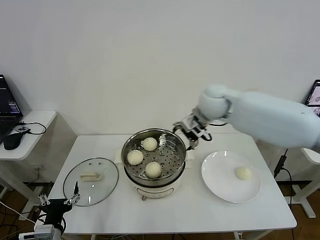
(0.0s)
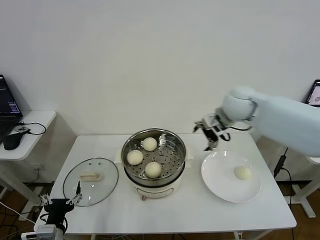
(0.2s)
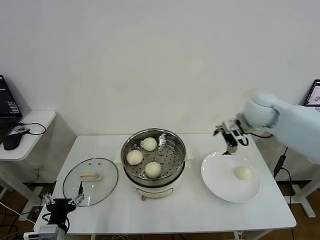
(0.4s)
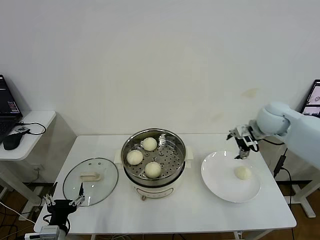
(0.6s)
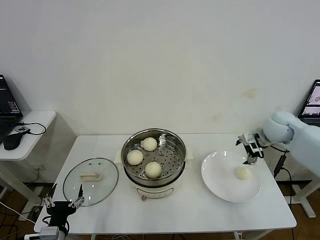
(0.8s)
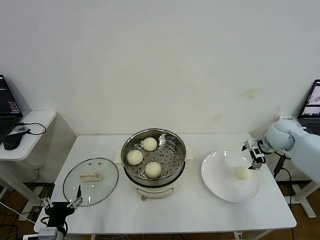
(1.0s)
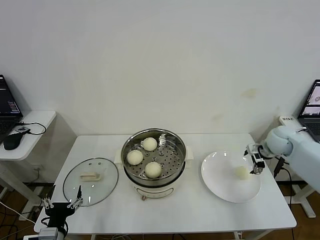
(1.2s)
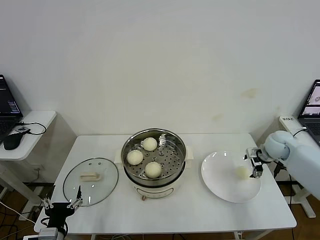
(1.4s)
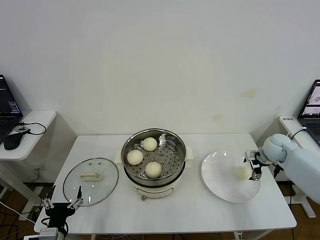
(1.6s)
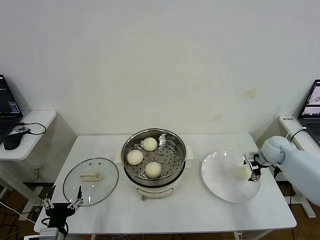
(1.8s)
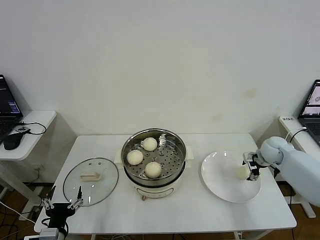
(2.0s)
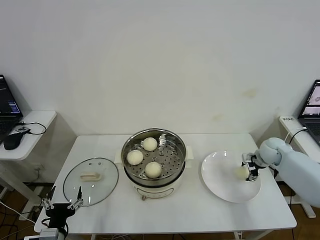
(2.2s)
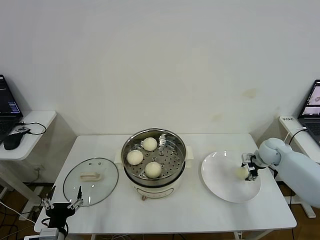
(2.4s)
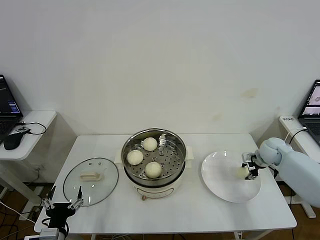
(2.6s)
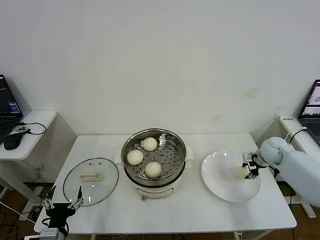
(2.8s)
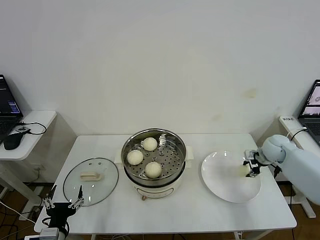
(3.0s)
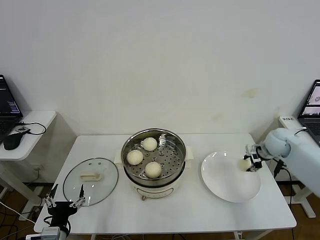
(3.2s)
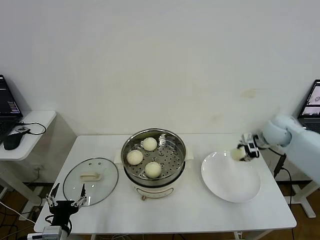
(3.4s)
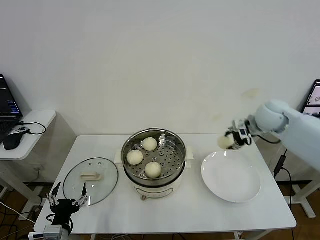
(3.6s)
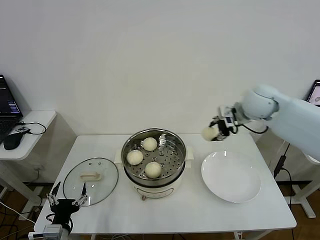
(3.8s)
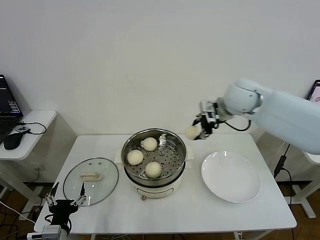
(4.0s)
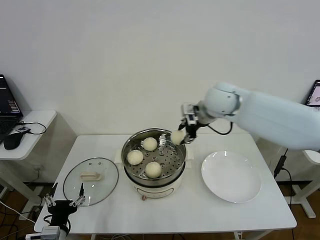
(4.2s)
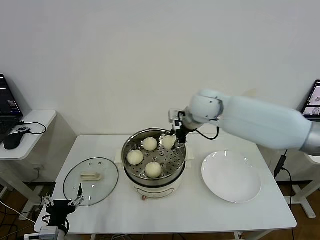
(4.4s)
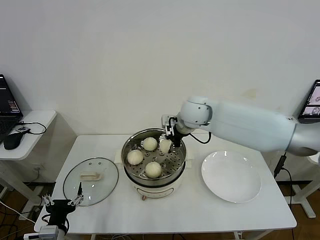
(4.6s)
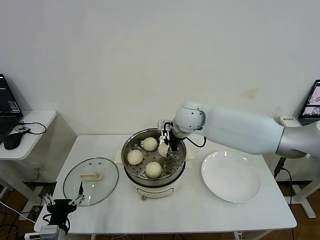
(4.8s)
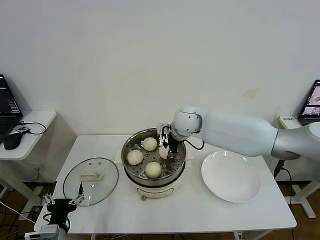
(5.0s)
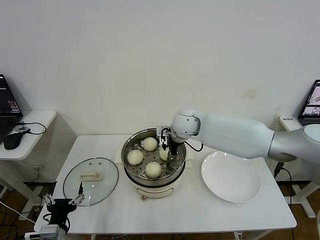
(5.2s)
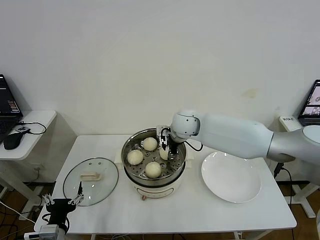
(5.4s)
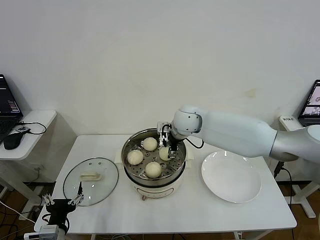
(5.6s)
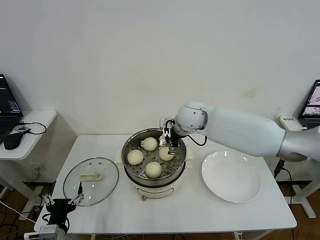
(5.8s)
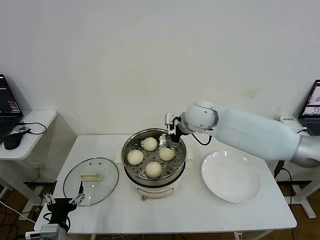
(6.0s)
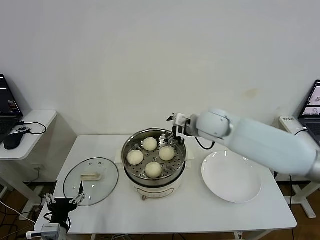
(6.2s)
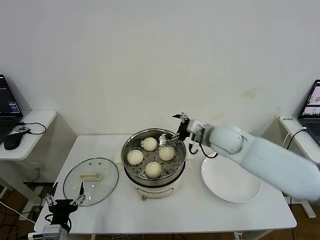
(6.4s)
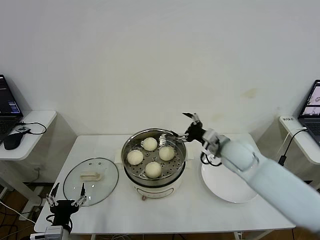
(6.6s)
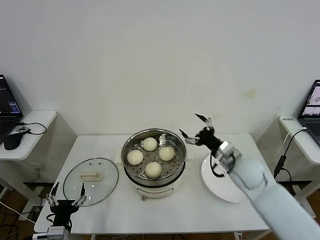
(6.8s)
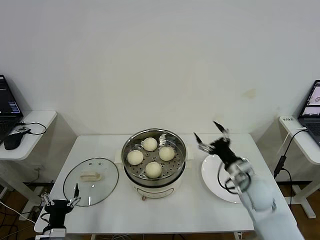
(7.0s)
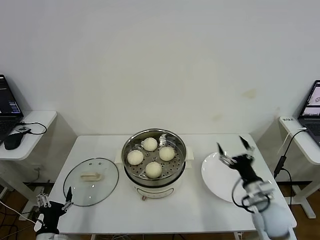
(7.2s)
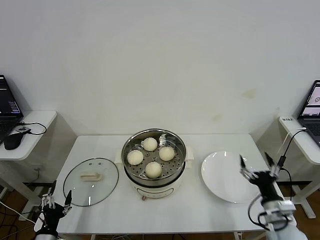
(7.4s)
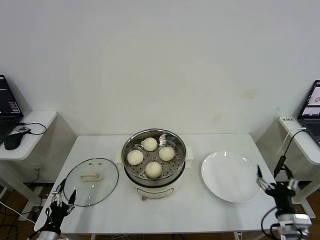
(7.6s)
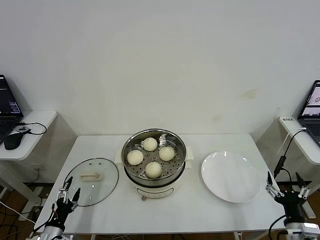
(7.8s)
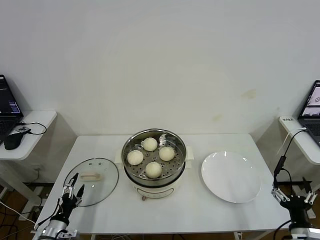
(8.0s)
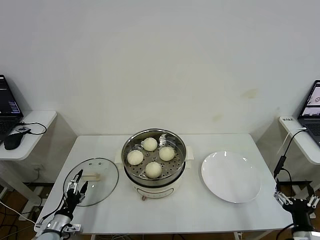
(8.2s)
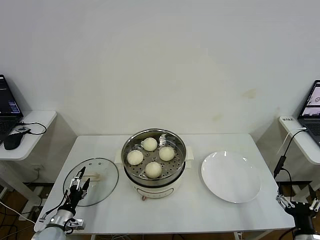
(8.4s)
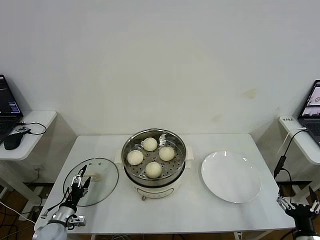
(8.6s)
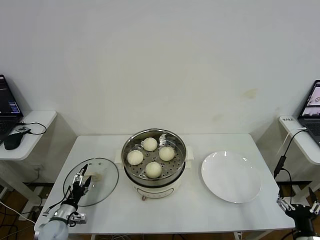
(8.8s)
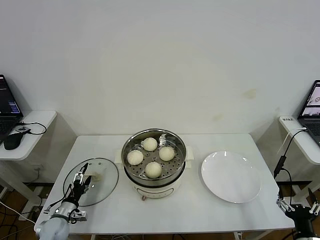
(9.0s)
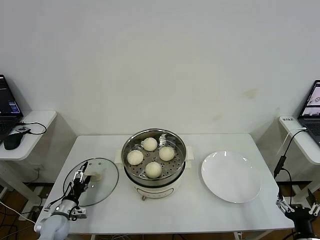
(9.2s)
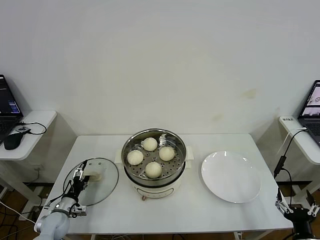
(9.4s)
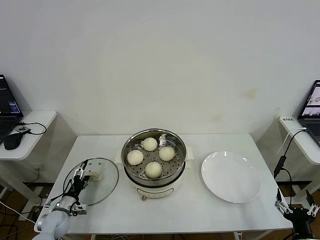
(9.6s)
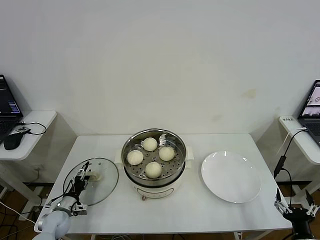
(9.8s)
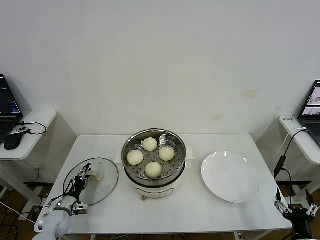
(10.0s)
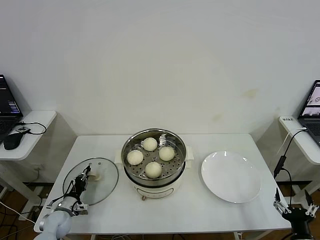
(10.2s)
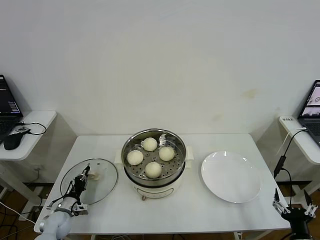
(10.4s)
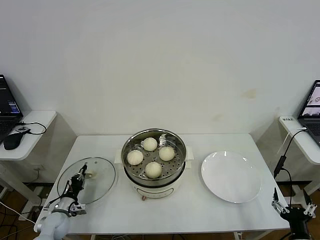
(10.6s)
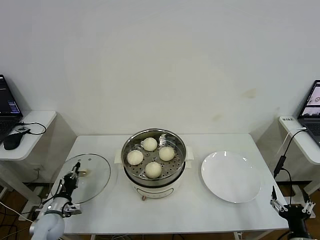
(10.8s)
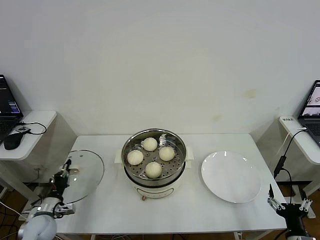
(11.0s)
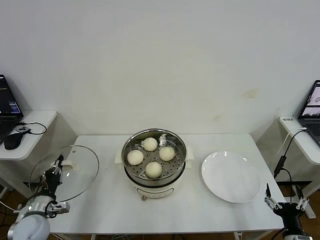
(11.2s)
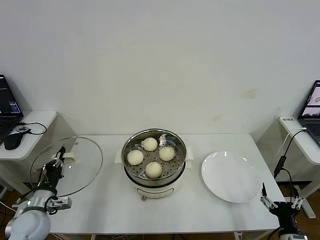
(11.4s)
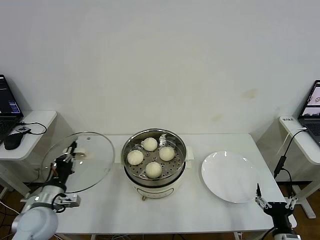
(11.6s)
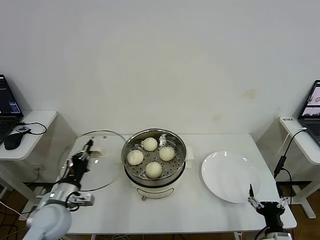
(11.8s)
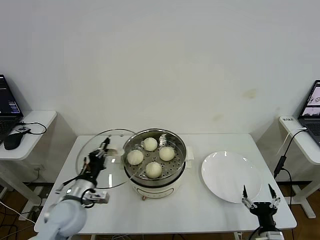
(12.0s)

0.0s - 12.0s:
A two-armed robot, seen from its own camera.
Step, 0.0s - 2.8s: Grasp the baozi in the plate with right gripper.
Step, 3.0s - 5.6s: Place the baozi on the steamer with right gripper.
Step, 5.8s - 10.4s: Grasp the pot lid with left gripper.
0.0s - 1.6s: The right gripper heads to the right and downward, covering some 30 cm.
1.6s - 3.0s: The right gripper closes up.
3.0s - 4.4s: The right gripper heads to the left and upward, covering roughly 35 cm.
4.4s - 6.0s: The right gripper opens.
6.0s - 7.6s: The left gripper shifts roughly 10 cm downward and to the left; the right gripper heads backward, to the right and downward, covering approximately 50 cm.
7.6s - 9.0s: The right gripper moves backward, some 5 cm; the left gripper is displaced forward by roughly 10 cm.
9.0s - 10.4s: The left gripper closes its fingers.
10.4s - 12.0s: The left gripper travels upward and to the right by roughly 25 cm. Meanwhile the right gripper shifts approximately 5 cm to the left.

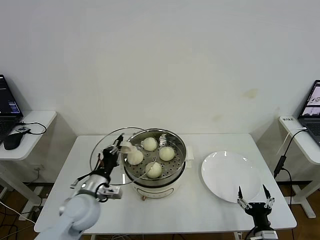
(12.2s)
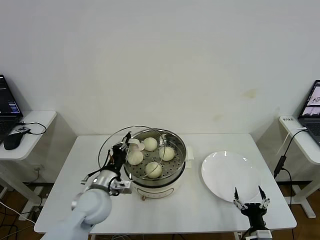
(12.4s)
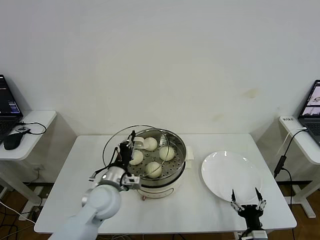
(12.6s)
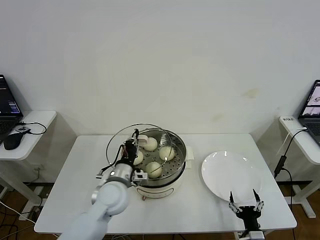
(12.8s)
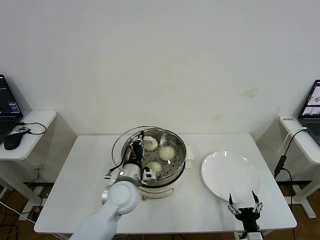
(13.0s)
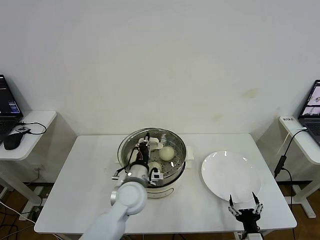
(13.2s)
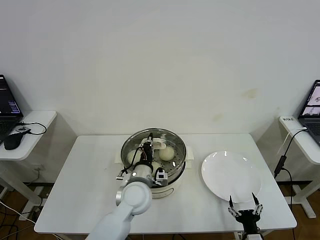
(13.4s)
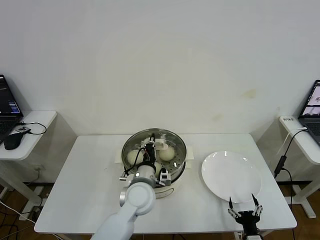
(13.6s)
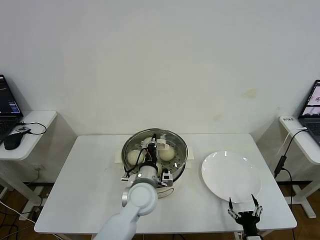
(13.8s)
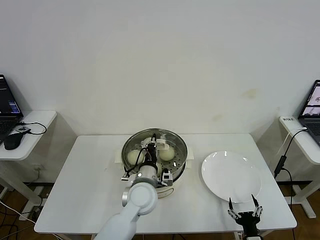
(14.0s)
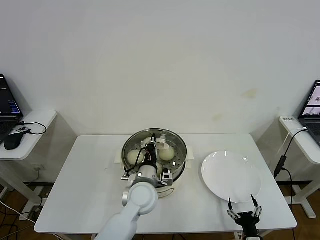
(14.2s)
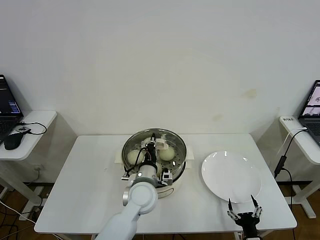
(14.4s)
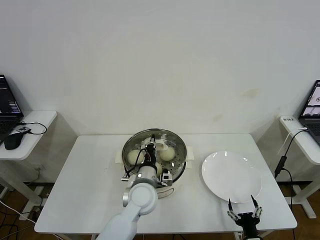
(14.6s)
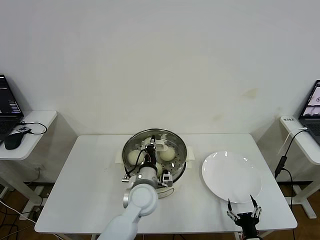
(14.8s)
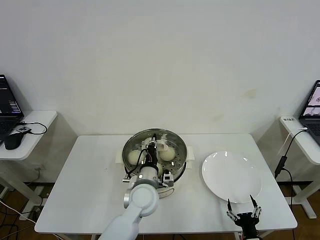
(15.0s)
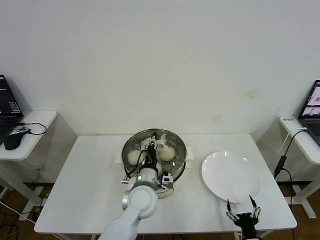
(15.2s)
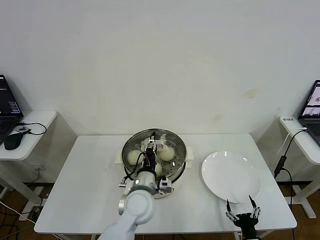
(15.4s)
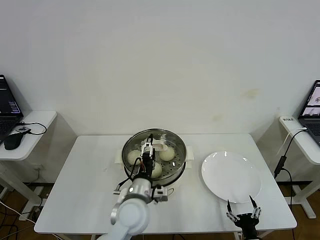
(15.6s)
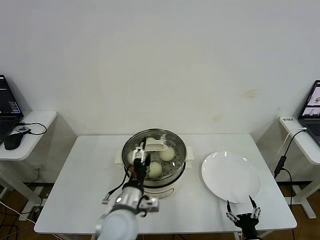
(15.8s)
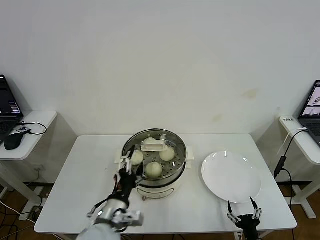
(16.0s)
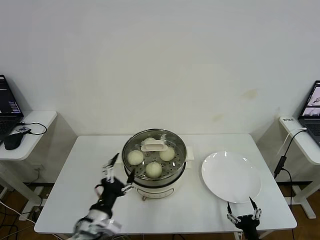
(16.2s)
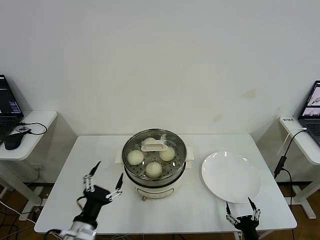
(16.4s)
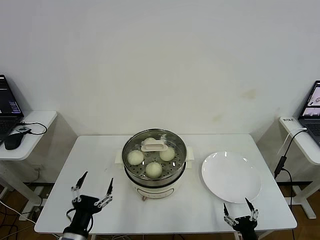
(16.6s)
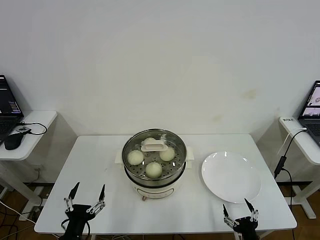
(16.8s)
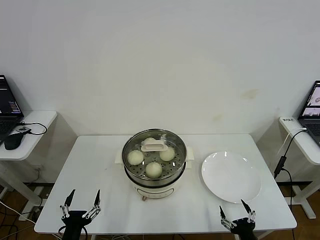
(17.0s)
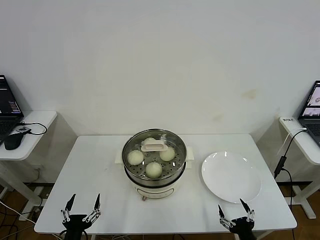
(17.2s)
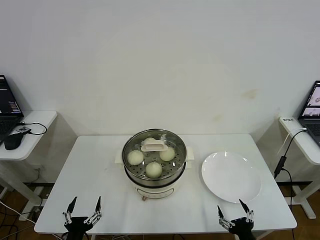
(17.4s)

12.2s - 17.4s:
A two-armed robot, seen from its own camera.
Step, 12.2s - 15.4s: Place the pot lid on the steamer with left gripper.
12.2s - 14.0s: The left gripper shifts approximately 20 cm to the right.
14.0s - 15.6s: The left gripper opens.
15.6s - 17.4s: The right gripper travels upward by roughly 5 cm; the left gripper heads to the left, backward and downward, covering some 30 cm.

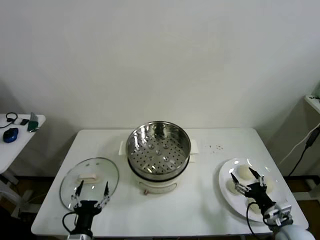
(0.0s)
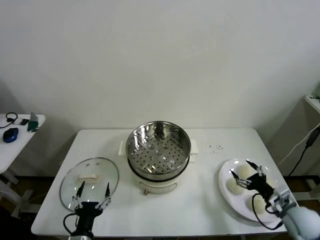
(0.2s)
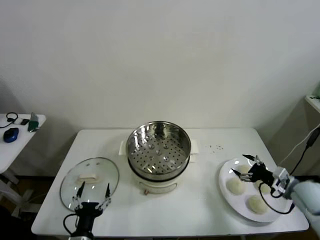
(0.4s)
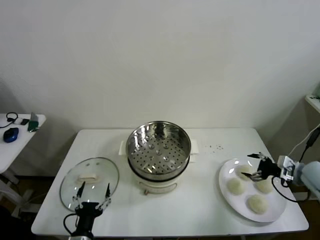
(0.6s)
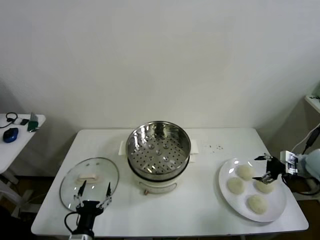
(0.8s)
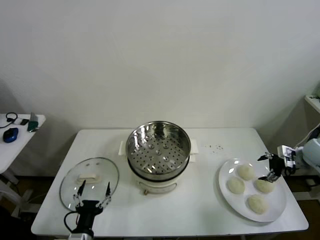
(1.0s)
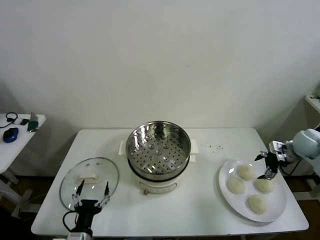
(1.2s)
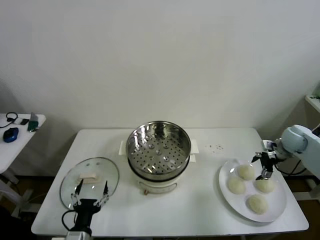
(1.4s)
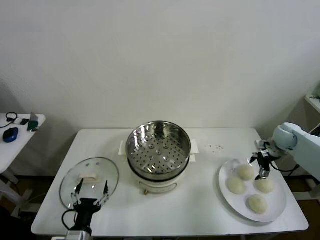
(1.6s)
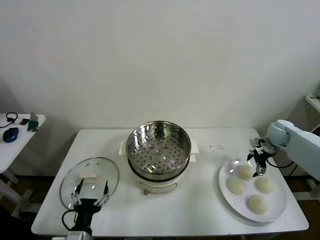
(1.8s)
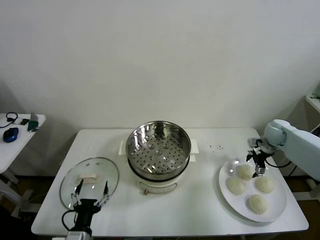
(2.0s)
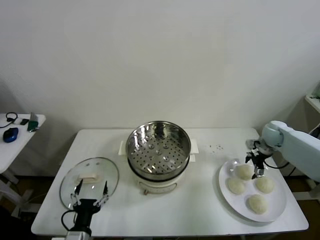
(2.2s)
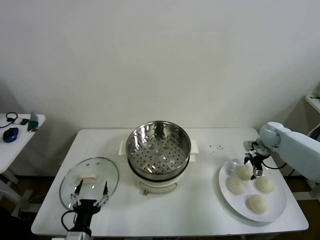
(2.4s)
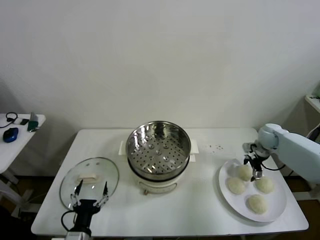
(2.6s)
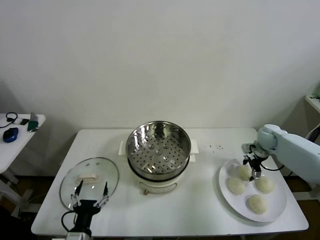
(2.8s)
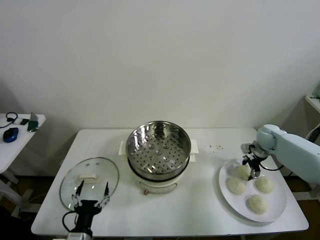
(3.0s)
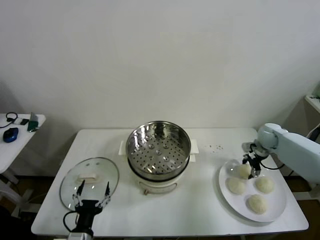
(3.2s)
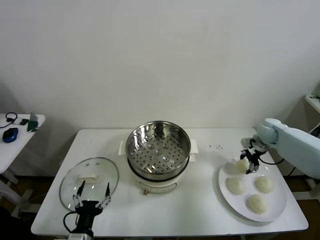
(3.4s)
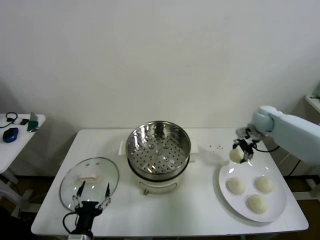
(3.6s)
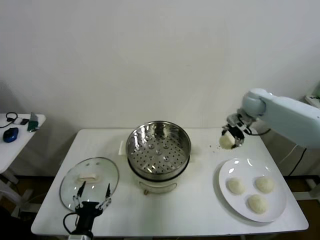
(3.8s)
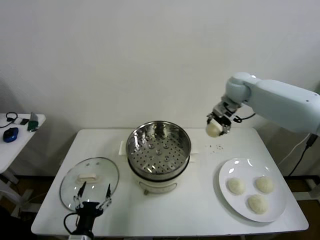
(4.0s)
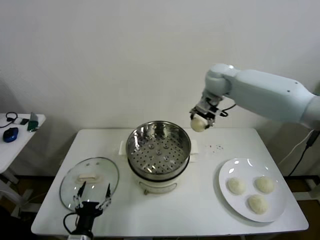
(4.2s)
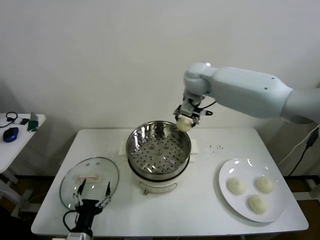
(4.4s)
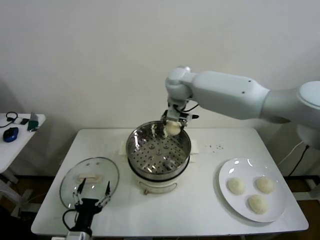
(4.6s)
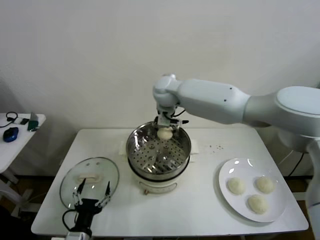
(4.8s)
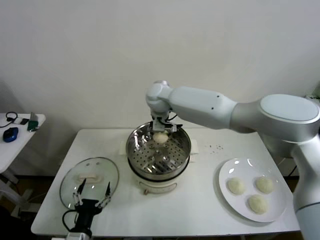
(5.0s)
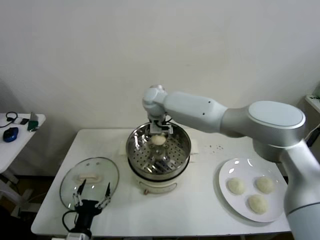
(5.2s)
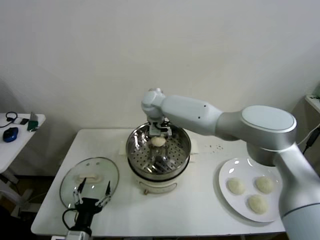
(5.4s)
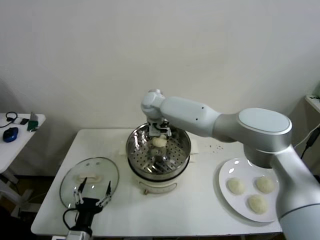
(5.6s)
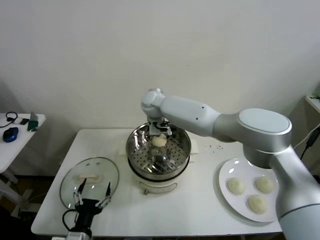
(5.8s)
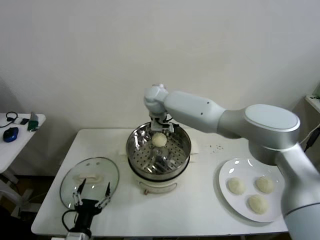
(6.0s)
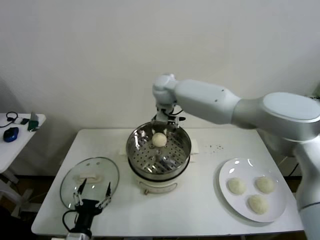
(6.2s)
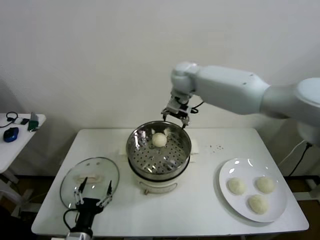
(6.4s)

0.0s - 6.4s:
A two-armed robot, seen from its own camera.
Step, 0.0s - 3.0s: Grasp the baozi in the plate with right gripper.
Step, 3.2s - 5.6s: Place the baozi on the steamer with right gripper.
1.6s - 3.2s: The right gripper closes its fingers.
3.2s - 4.8s: The right gripper moves to the left and upward, about 50 cm.
4.8s - 6.4s: The right gripper shifts roughly 15 cm to the right and upward, and opens up.
